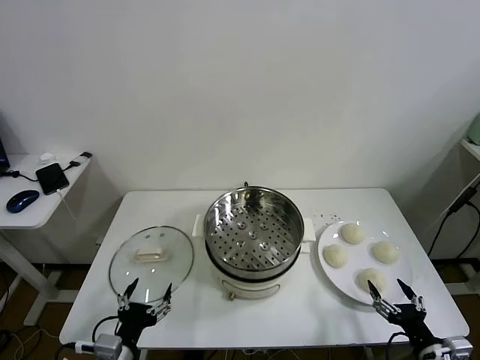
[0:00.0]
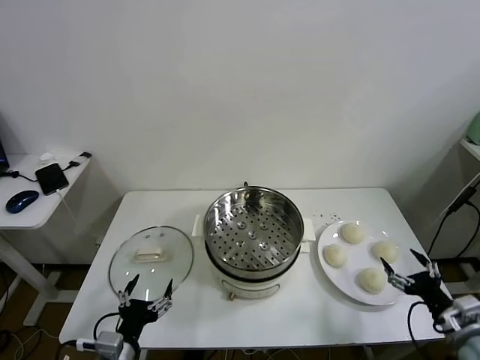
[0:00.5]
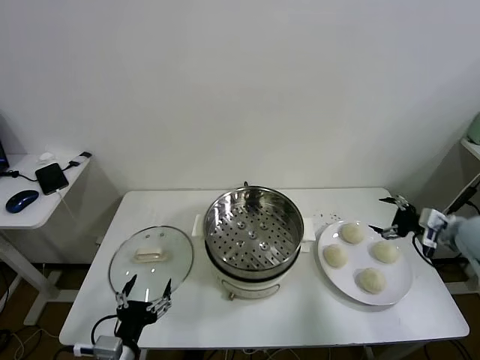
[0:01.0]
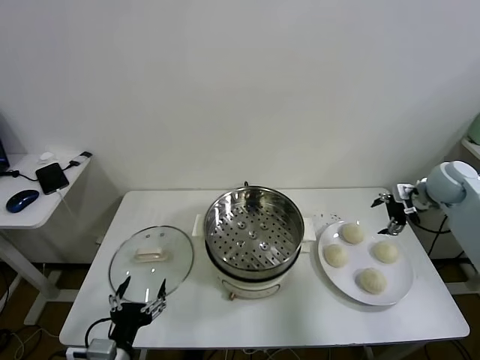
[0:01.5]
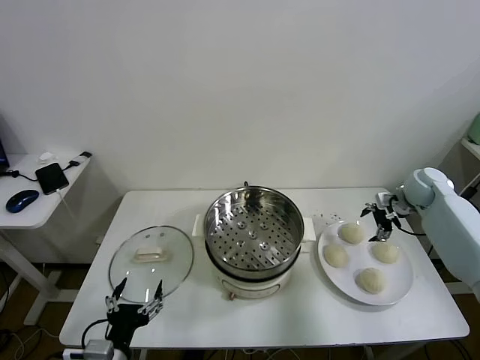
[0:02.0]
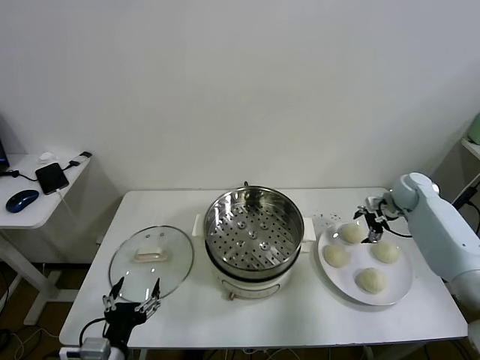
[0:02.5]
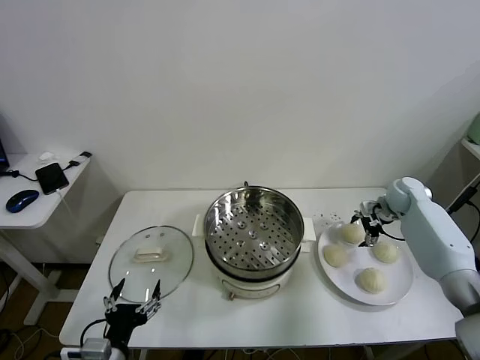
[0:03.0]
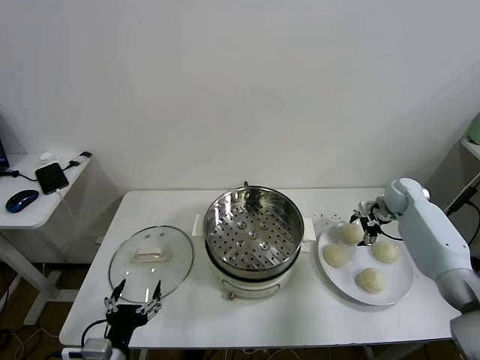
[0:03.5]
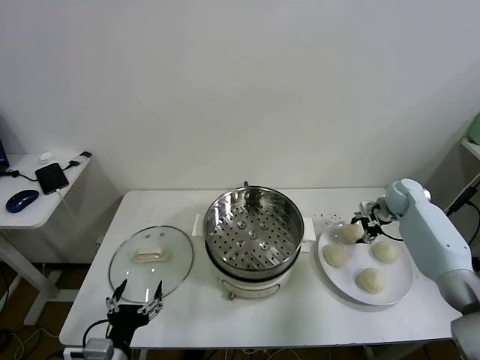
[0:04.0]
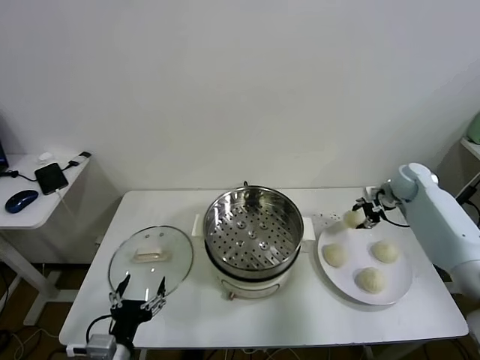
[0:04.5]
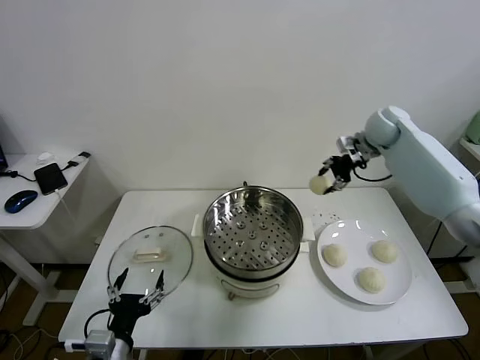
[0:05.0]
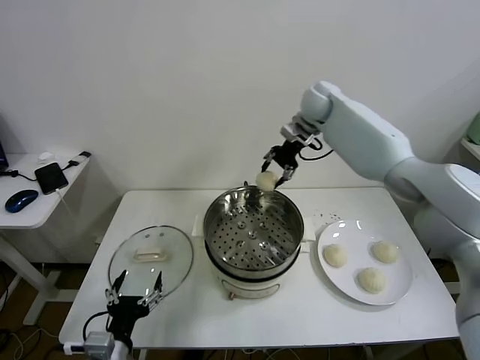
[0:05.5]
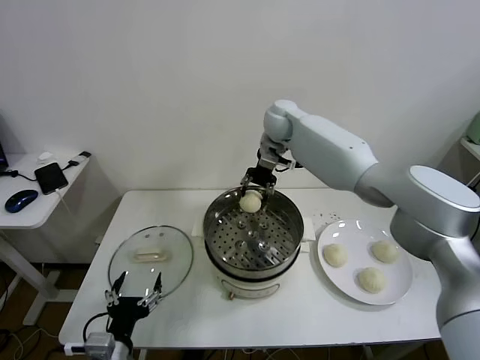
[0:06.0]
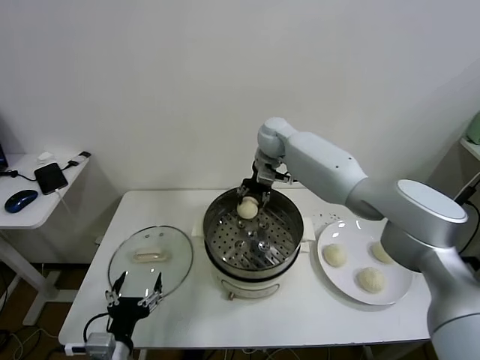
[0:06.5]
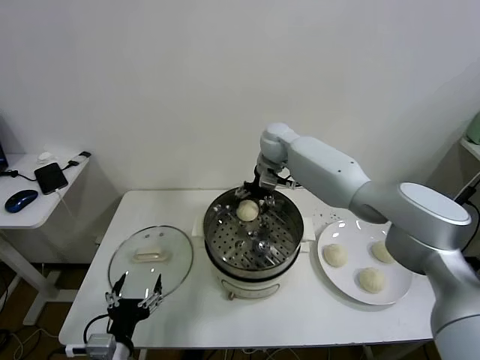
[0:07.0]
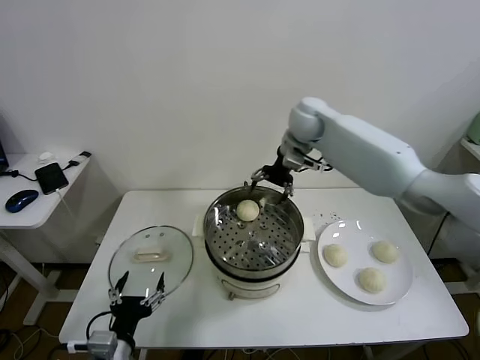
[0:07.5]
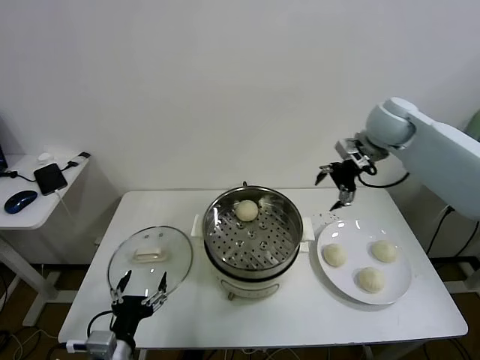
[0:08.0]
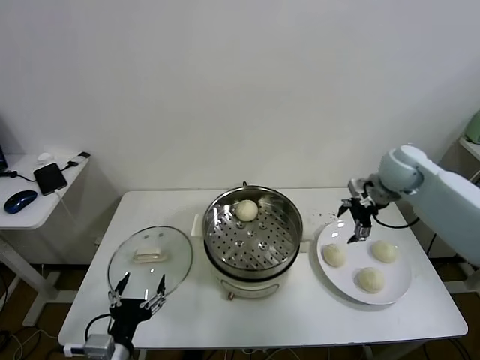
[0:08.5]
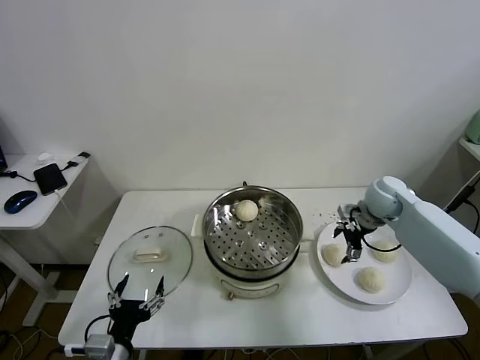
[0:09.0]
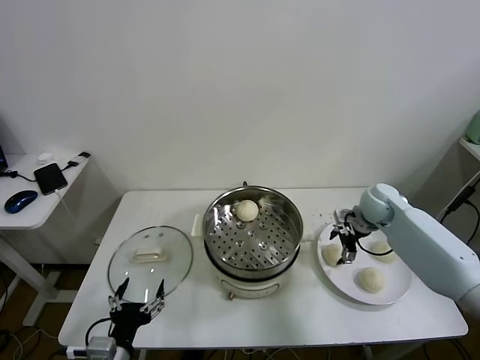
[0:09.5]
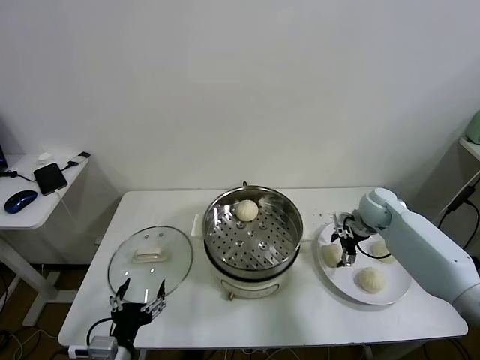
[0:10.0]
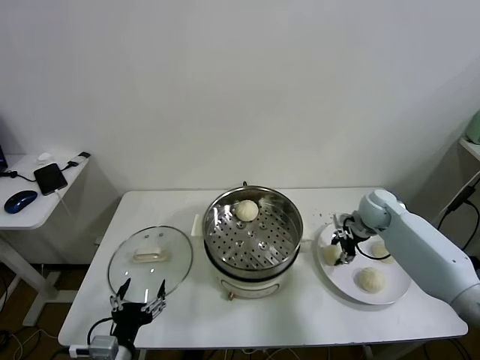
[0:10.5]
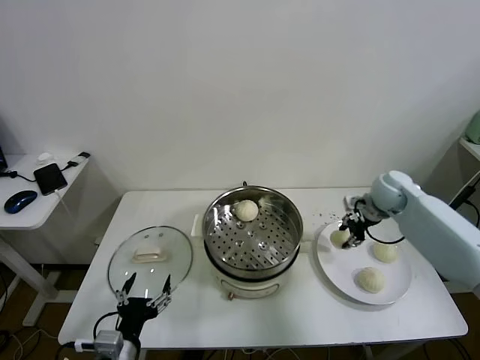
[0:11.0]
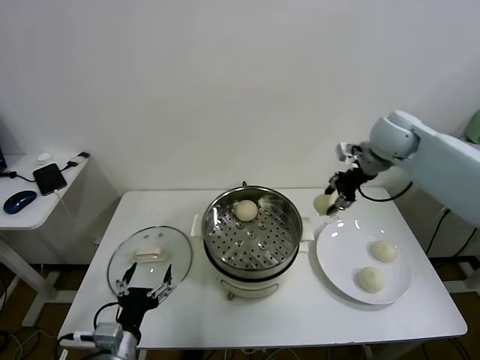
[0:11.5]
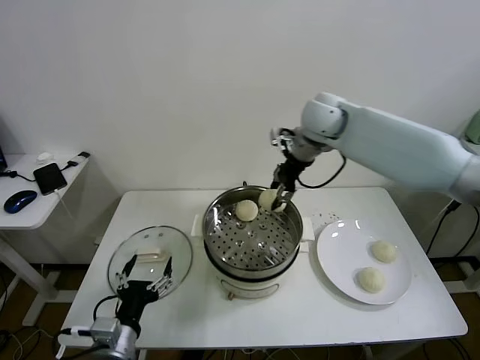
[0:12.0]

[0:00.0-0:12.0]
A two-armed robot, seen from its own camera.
Task of the whole recording: take steamed baozi put them in steamer.
Step, 0.0 to 3.5 s: Grasp the baozi in the plate with right gripper.
Step, 4.0 to 7.0 s: Place the baozi on the steamer with right gripper.
Step, 7.5 to 10.5 s: Grasp the baozi in the plate with right gripper.
2.0 to 4.0 s: The right gripper closes.
4.0 to 6.0 s: The right gripper shifts approximately 40 cm to the left and upward.
6.0 to 8.0 s: The right gripper moves to the right and backward, about 25 cm, and opens up.
8.0 to 10.0 s: The right gripper is displaced downward by about 25 cm.
10.0 to 12.0 s: The right gripper travels upward and to the left by roughly 30 cm, and closes up.

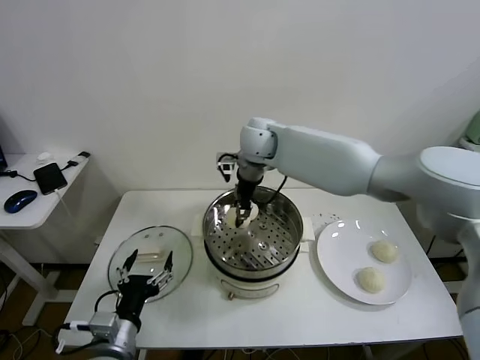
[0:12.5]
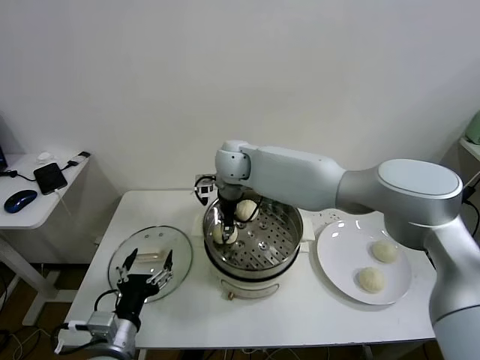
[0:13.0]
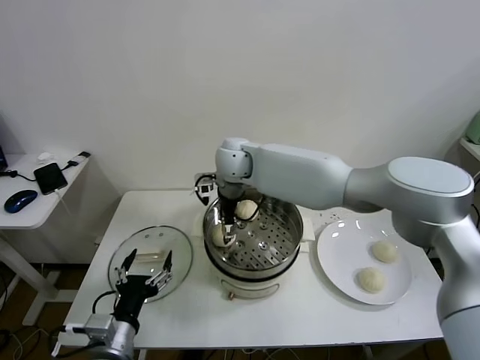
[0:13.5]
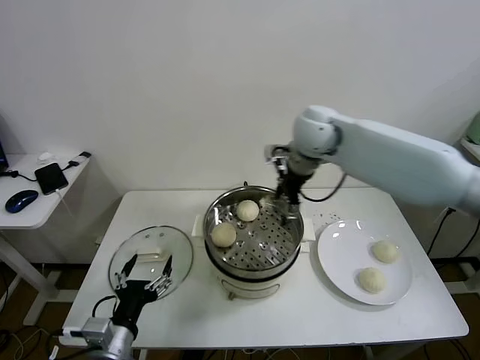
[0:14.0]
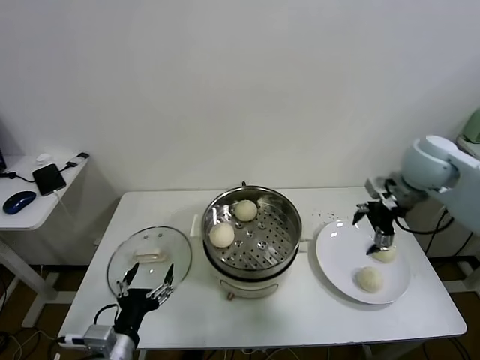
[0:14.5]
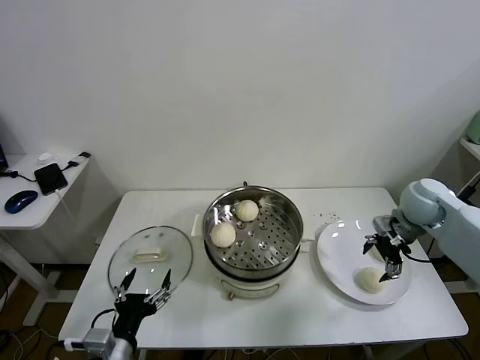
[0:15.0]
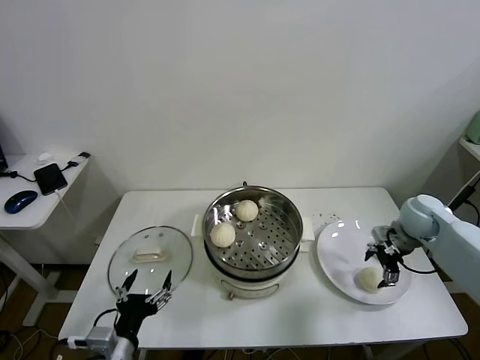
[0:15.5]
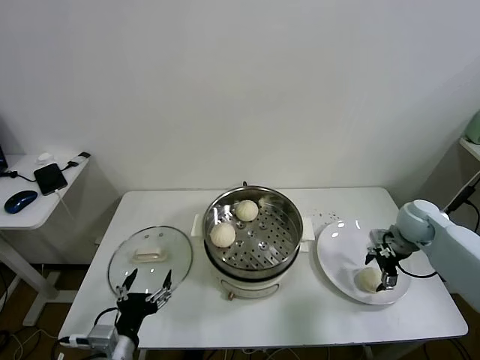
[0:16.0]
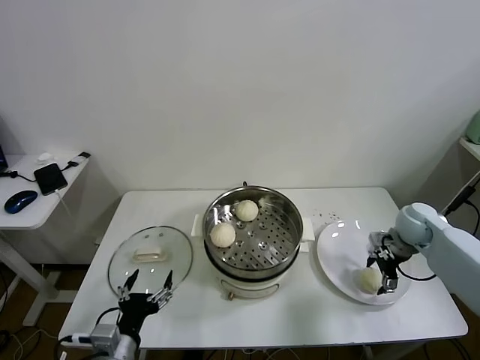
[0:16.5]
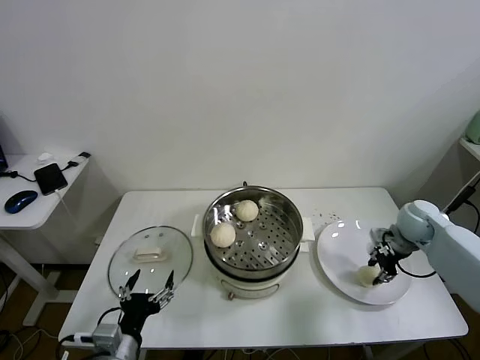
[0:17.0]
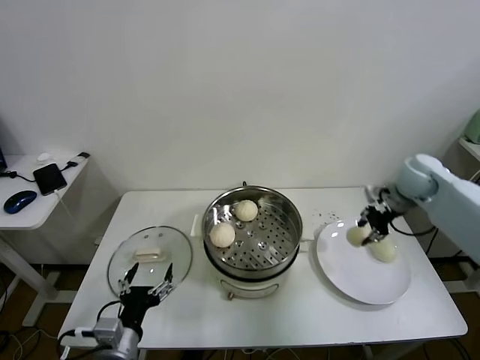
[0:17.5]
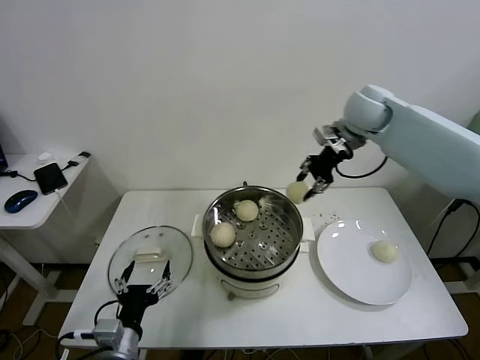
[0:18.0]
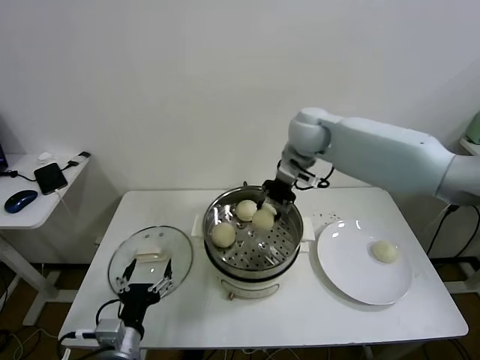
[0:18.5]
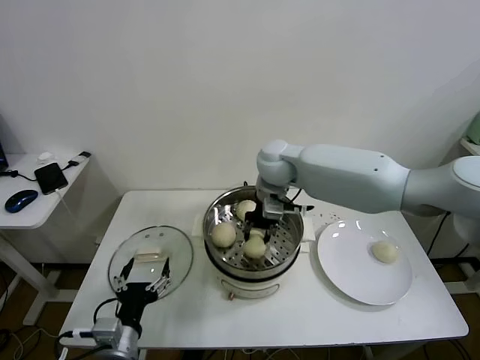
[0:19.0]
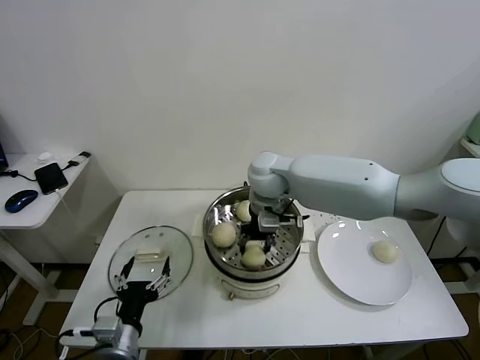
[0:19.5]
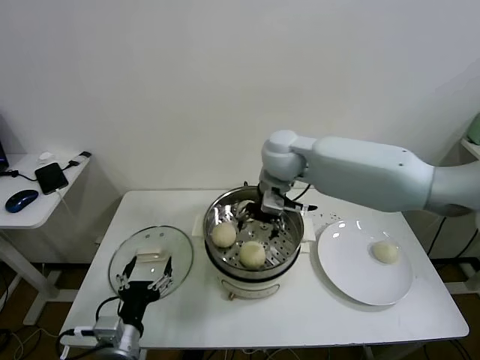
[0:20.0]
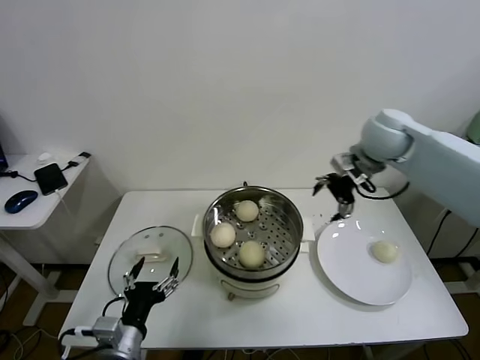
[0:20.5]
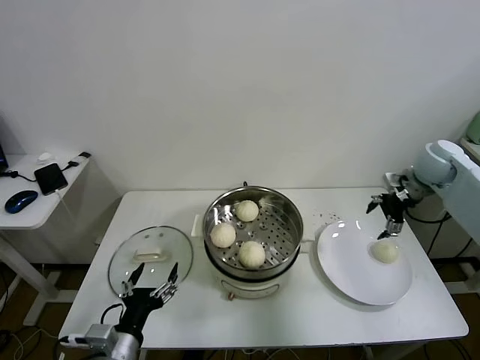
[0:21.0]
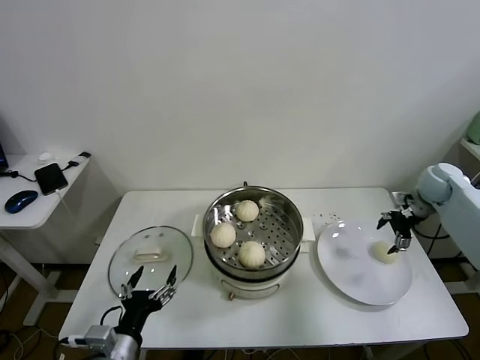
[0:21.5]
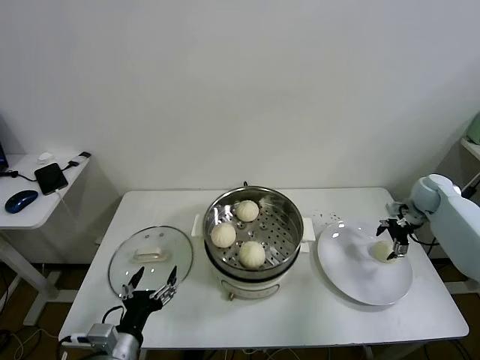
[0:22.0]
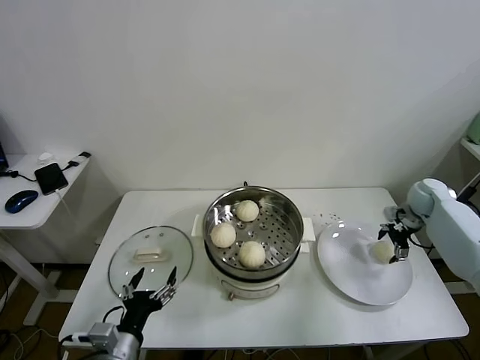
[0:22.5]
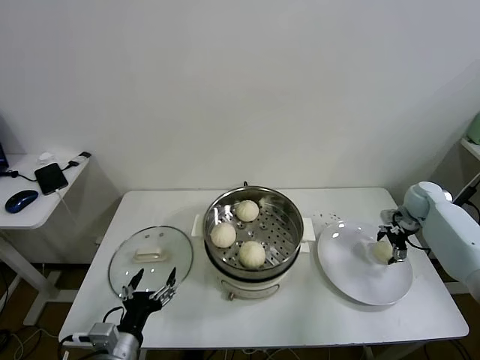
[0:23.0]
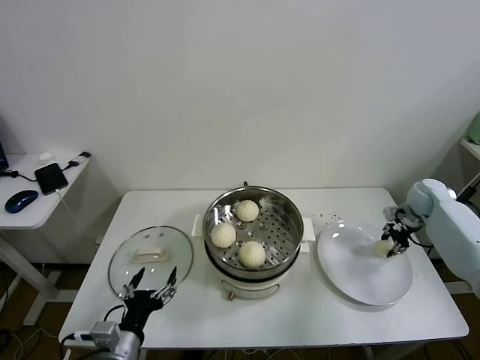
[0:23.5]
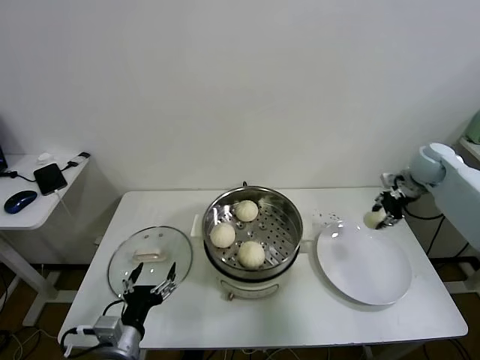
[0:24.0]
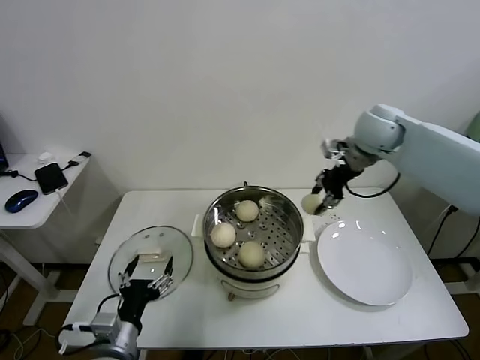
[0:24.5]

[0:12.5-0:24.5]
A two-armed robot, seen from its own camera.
Task of the whole recording: take steamed baozi put them in steamer.
Step, 14.0 to 16.5 s: Grasp the baozi in the plate with right gripper.
Step, 17.0 to 19.5 s: Place the baozi on the steamer with right gripper.
Step, 20.0 to 23.0 s: Grasp the baozi in the plate with right gripper.
12.5 to 14.5 s: The right gripper travels to the right by approximately 35 cm, and opens.
14.5 to 16.5 s: The right gripper travels downward by about 20 cm.
16.5 to 18.5 s: The right gripper heads to the left and upward, covering roughly 35 cm, and closes up.
18.5 to 20.5 s: The right gripper shifts about 15 cm to the right, and opens its fingers.
20.5 to 22.5 s: The right gripper moves downward and to the right, some 30 cm.
22.5 to 24.5 s: The right gripper goes some 30 cm upward and to the left, and closes its fingers.

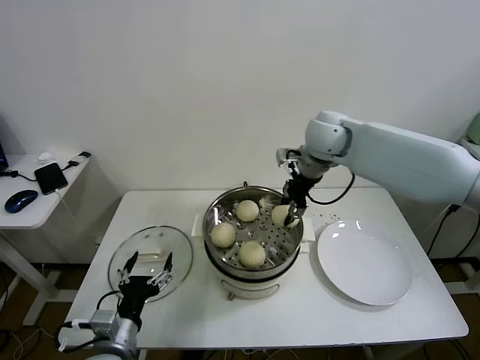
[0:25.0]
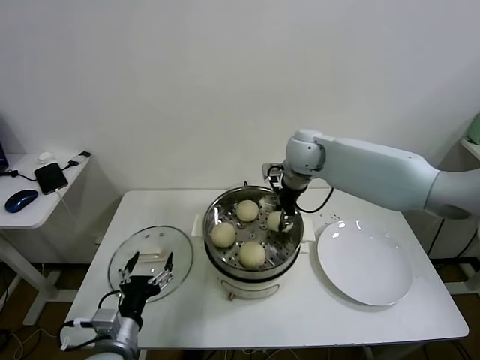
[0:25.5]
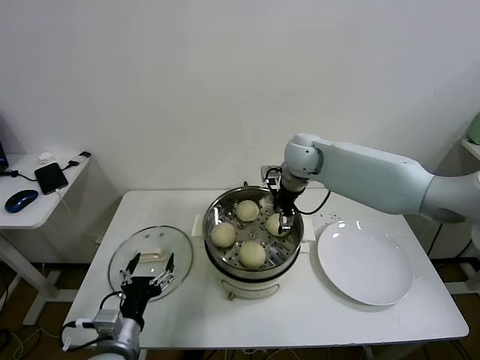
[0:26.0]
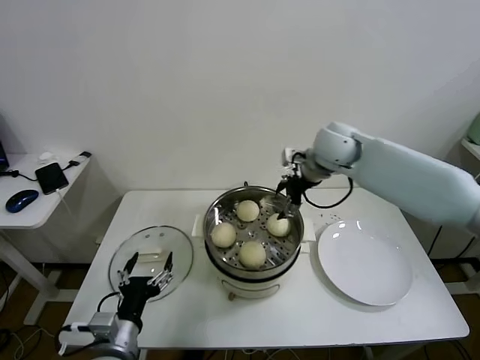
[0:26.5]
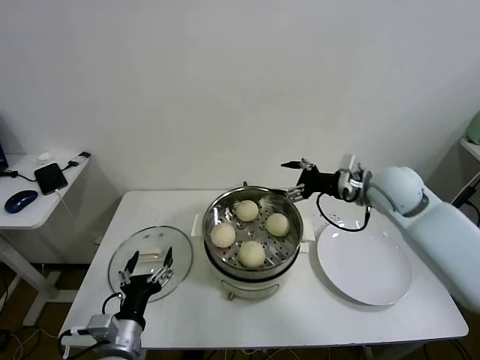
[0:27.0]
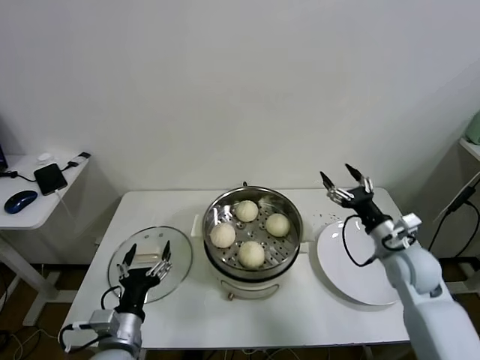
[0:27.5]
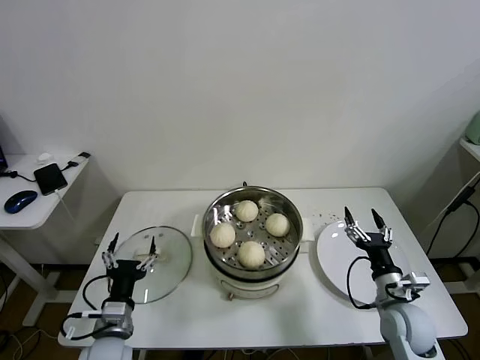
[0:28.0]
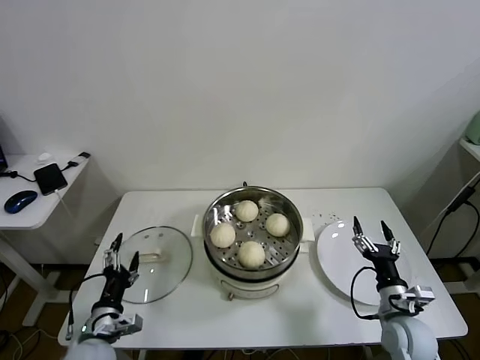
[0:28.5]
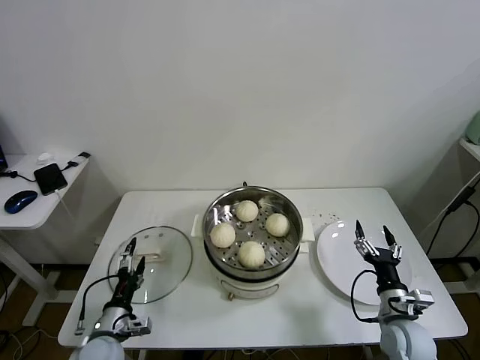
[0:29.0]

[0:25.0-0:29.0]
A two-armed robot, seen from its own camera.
Task of the whole recording: take steamed baozi put them in steamer.
25.0 to 27.0 s: The right gripper goes approximately 15 cm to the right, backward and downward, and opens its fingers.
27.0 to 29.0 s: The left gripper heads downward, to the left and forward, covering some 15 cm; the right gripper travels downward and backward by about 35 cm.
